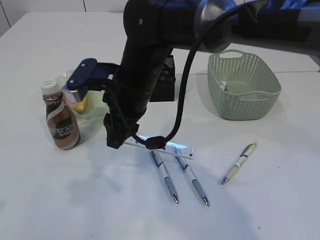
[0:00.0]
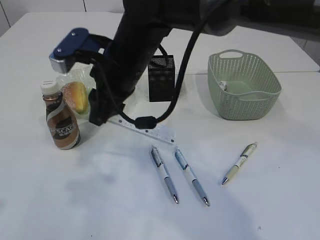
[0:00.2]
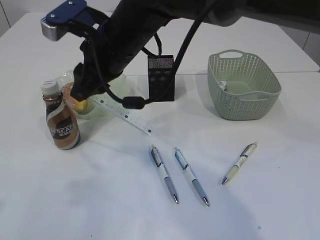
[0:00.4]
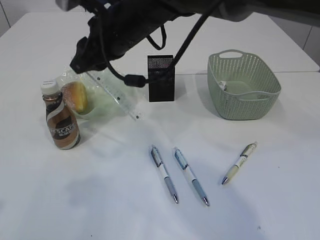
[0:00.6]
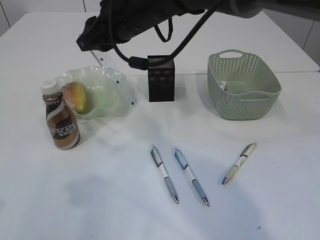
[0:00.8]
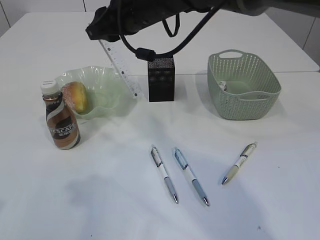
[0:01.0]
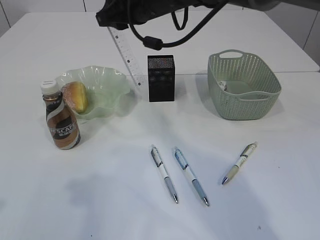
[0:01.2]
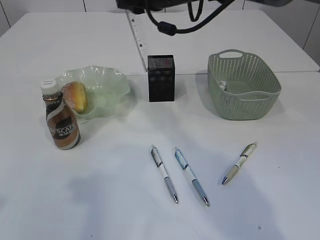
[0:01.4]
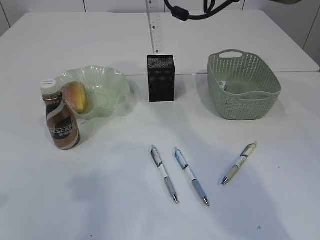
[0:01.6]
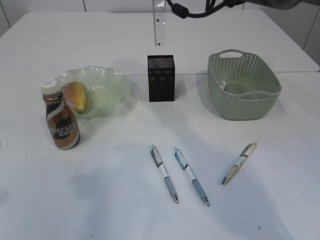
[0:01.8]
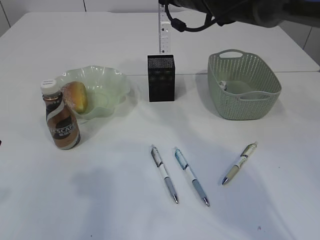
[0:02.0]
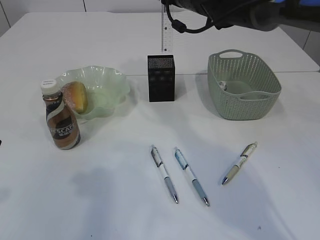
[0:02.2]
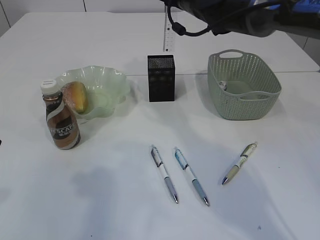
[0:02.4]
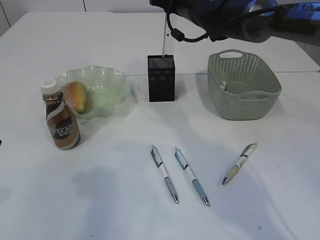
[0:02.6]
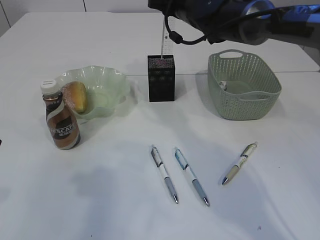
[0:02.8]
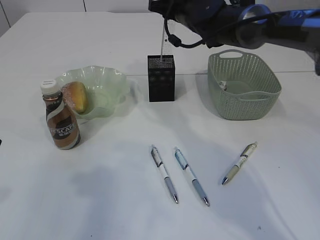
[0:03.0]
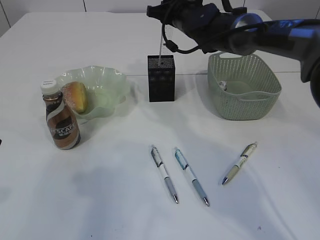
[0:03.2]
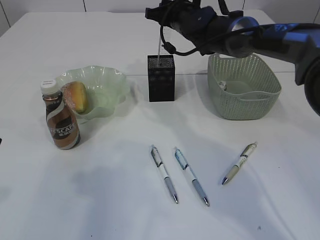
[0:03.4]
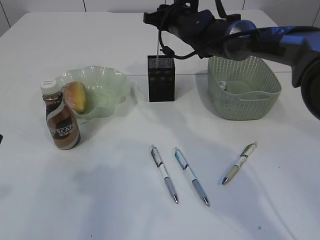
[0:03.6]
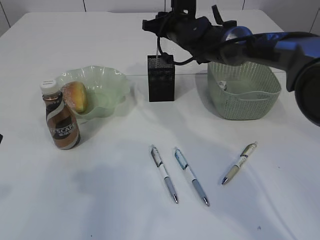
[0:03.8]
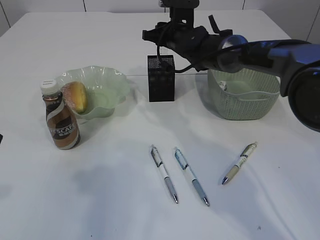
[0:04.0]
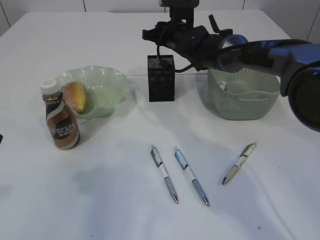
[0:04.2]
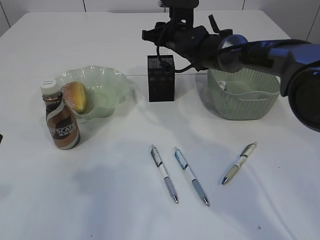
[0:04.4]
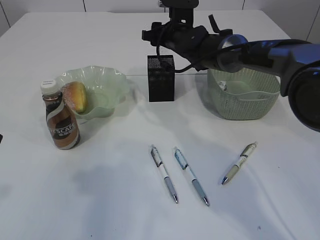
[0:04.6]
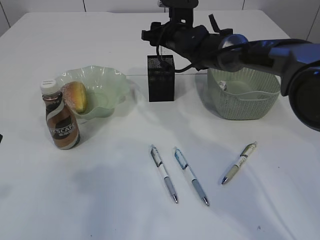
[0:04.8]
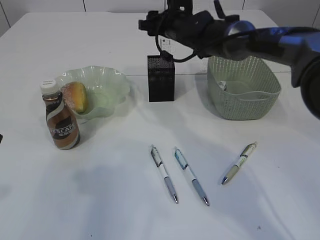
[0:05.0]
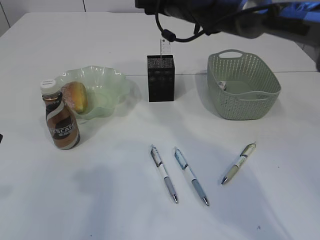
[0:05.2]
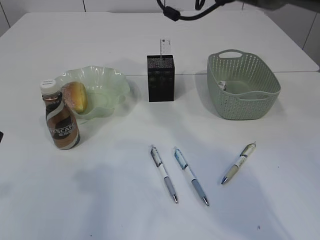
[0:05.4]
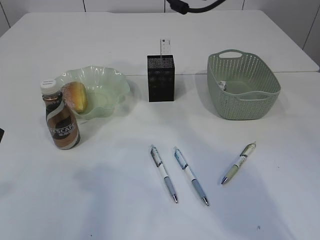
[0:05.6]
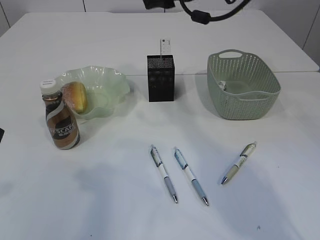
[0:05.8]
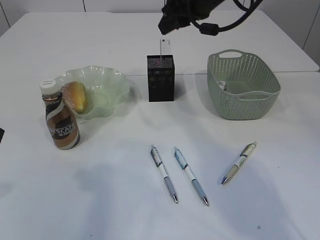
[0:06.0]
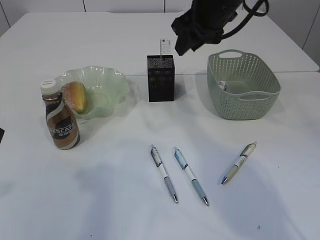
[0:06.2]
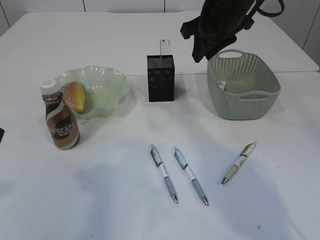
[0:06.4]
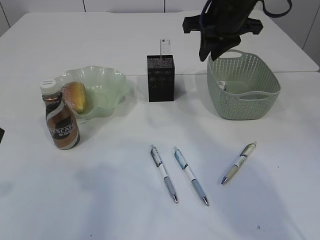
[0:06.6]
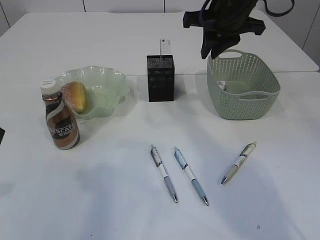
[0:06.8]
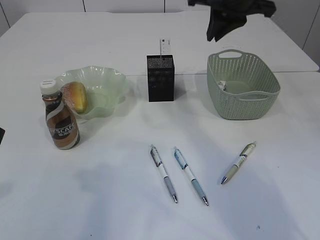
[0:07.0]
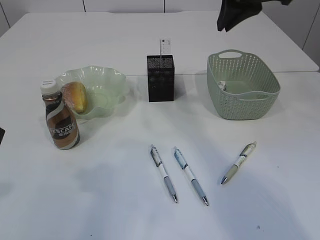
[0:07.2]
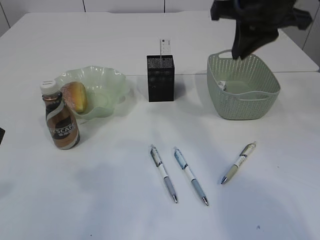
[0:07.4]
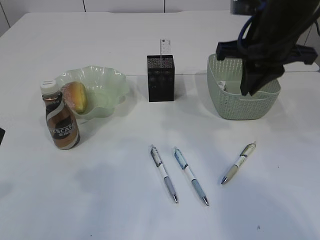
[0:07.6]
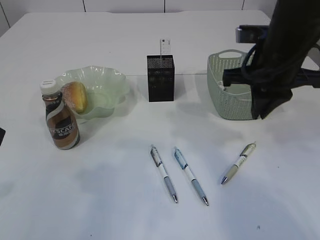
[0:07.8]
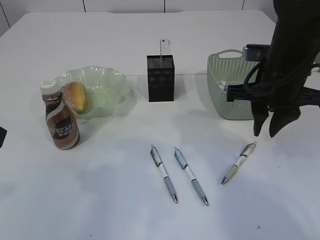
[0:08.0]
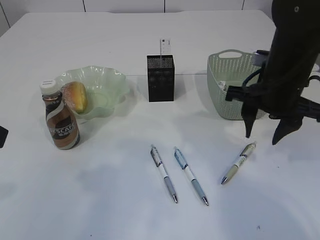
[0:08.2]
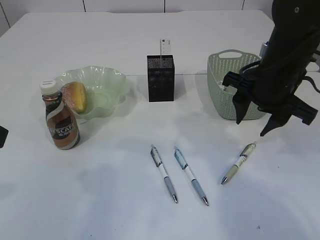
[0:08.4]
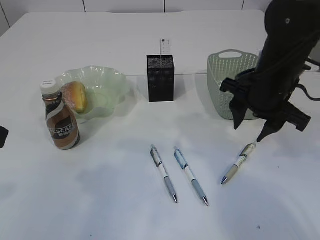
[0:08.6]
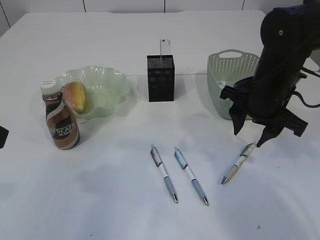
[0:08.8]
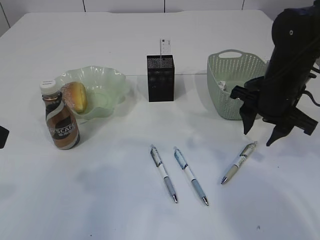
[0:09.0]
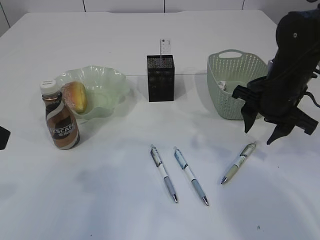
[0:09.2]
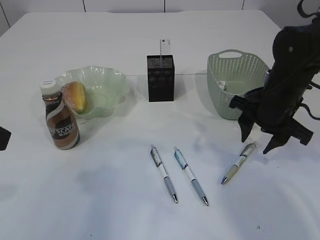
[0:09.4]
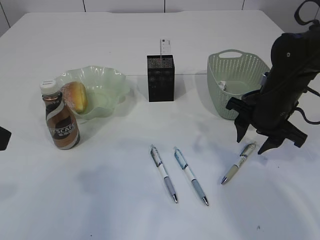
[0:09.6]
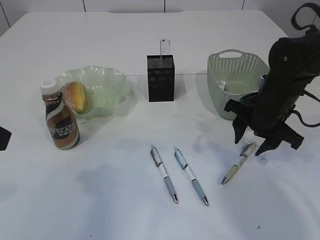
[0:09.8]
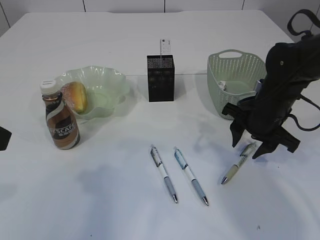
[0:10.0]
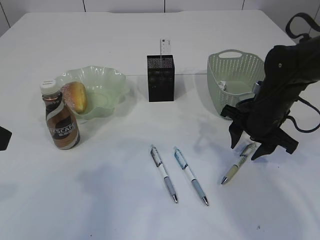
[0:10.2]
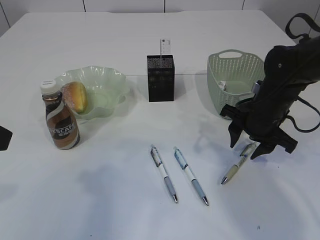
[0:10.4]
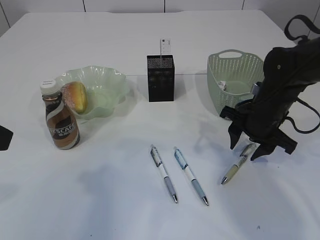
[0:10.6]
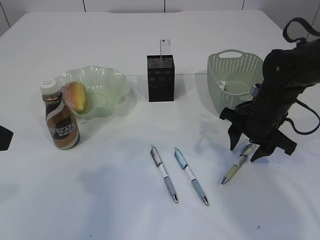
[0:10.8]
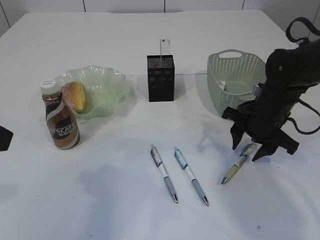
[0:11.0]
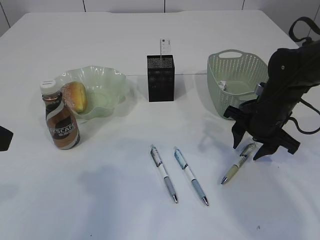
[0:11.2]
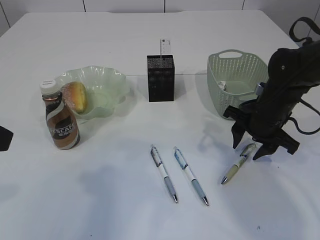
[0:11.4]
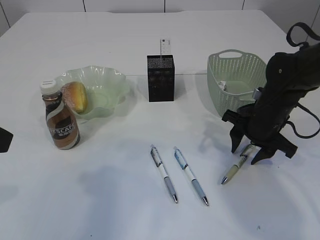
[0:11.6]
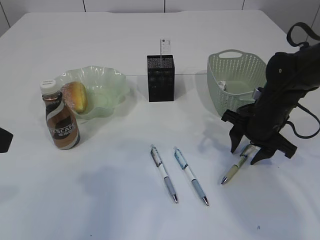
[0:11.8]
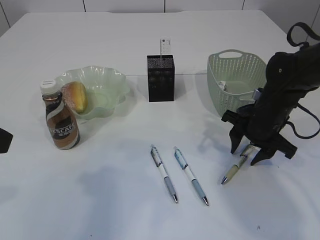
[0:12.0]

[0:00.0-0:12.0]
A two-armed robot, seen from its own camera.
Step, 0:00.2 to 0:06.0: Place the ruler into the pen holder.
0:00.0 to 0:01.6: The right gripper heads forward, upward and to the right, covering about 20 cm.
0:01.6 to 0:03.0: The right gripper goes about 5 cm downward.
0:03.0 to 0:04.4: The right gripper heads downward, covering roughly 5 cm.
0:04.4 to 0:06.0: The right gripper heads upward and backward, covering approximately 15 cm.
0:06.0 to 0:07.6: The right gripper moves backward and to the right, some 10 cm, and closes up.
0:07.6 to 0:09.0: The right gripper goes some 10 cm downward, and opens.
0:09.0 to 0:10.4: The right gripper shifts about 5 cm downward.
0:10.4 to 0:12.0: The grippers make only small movements.

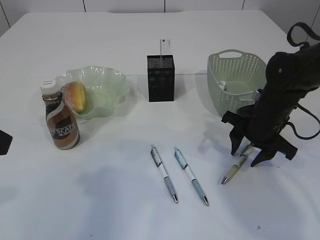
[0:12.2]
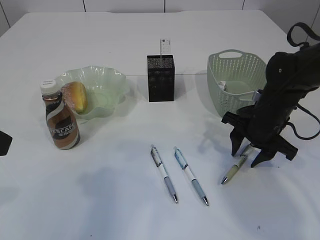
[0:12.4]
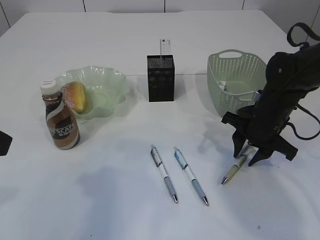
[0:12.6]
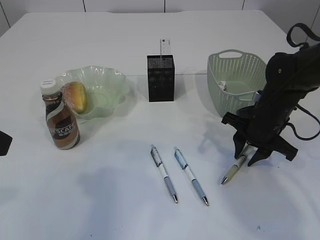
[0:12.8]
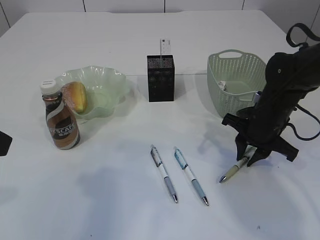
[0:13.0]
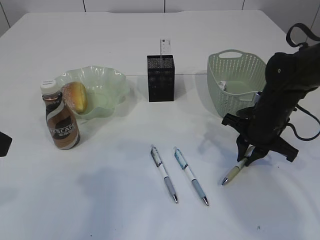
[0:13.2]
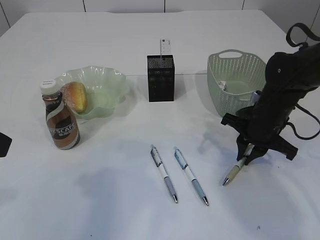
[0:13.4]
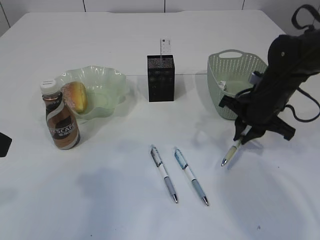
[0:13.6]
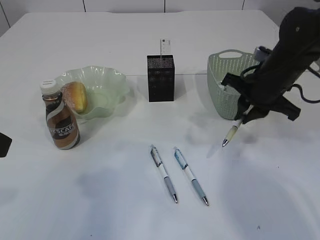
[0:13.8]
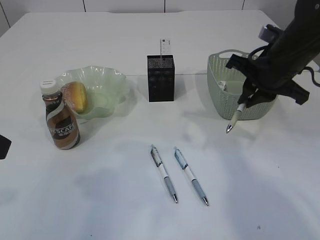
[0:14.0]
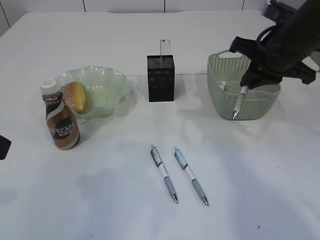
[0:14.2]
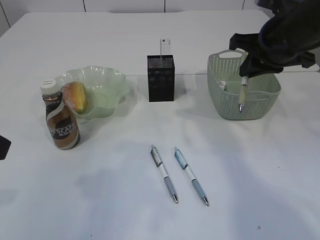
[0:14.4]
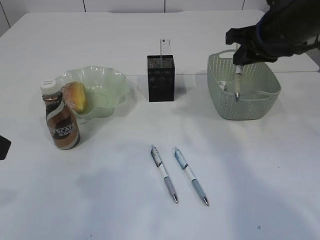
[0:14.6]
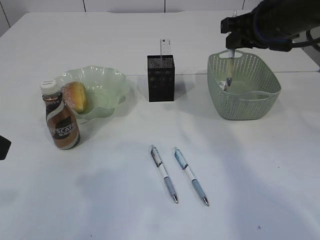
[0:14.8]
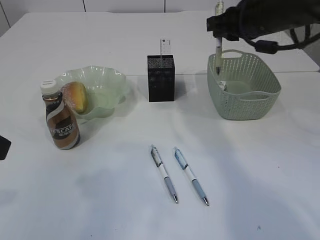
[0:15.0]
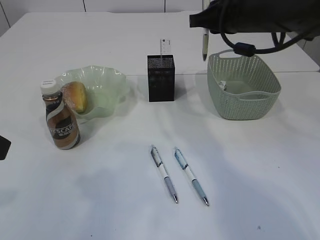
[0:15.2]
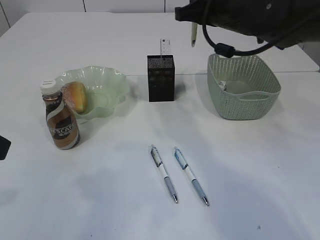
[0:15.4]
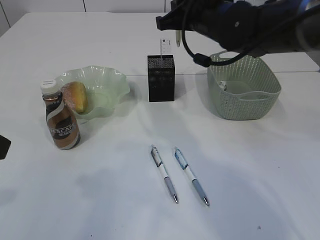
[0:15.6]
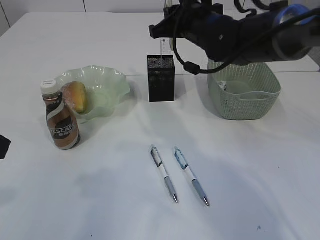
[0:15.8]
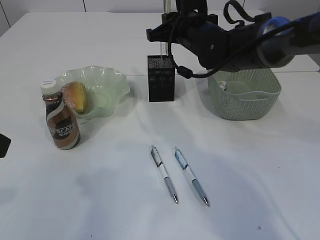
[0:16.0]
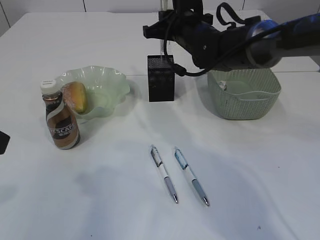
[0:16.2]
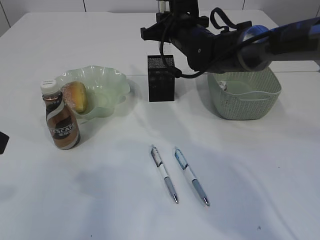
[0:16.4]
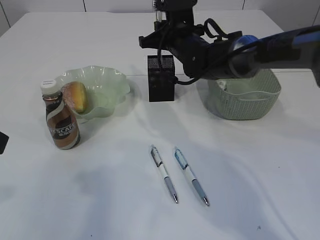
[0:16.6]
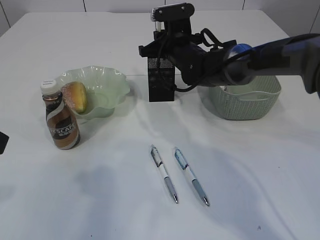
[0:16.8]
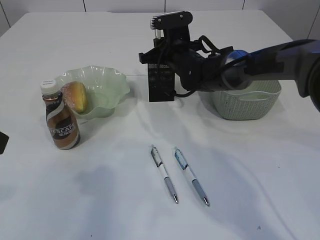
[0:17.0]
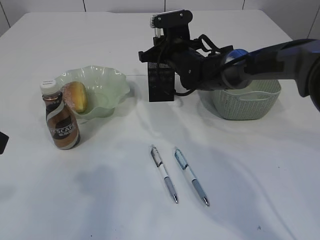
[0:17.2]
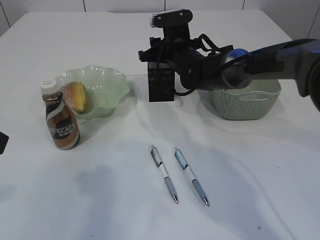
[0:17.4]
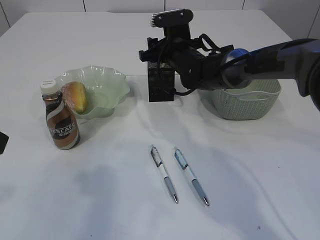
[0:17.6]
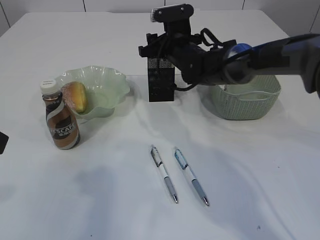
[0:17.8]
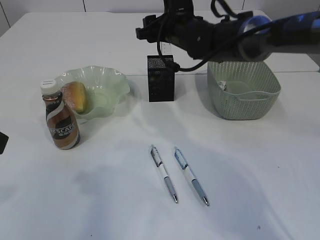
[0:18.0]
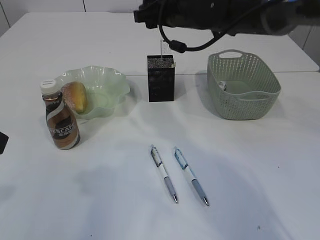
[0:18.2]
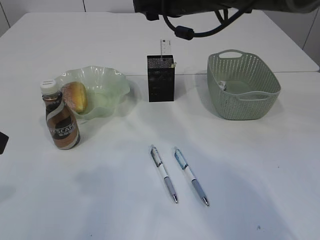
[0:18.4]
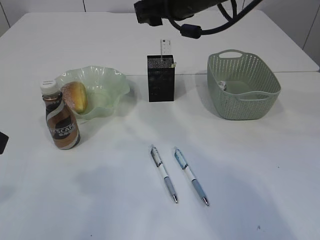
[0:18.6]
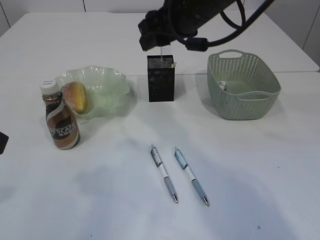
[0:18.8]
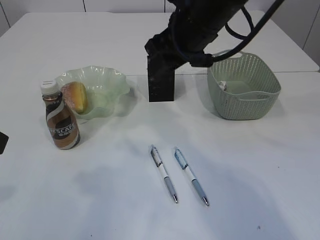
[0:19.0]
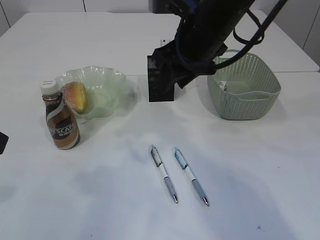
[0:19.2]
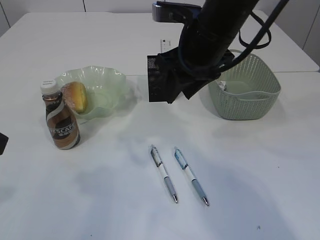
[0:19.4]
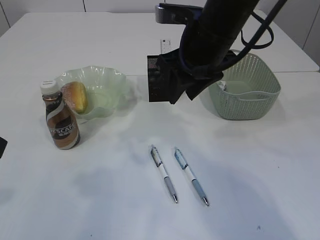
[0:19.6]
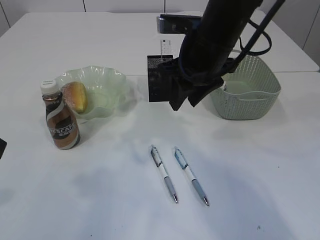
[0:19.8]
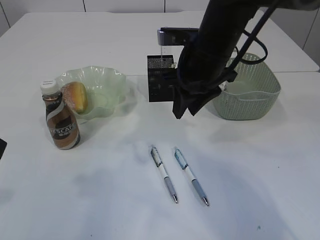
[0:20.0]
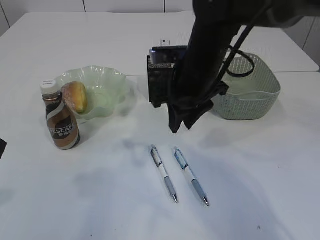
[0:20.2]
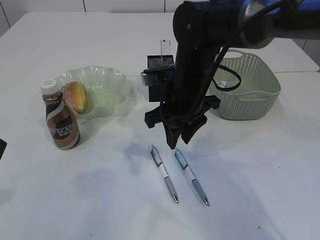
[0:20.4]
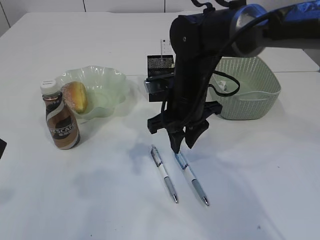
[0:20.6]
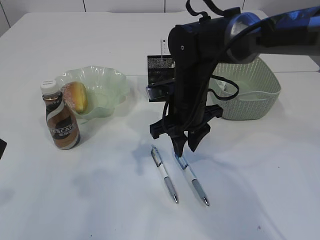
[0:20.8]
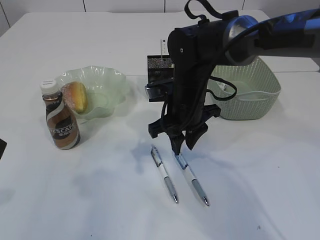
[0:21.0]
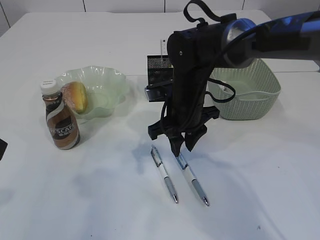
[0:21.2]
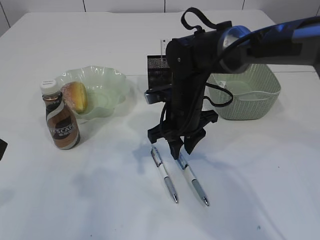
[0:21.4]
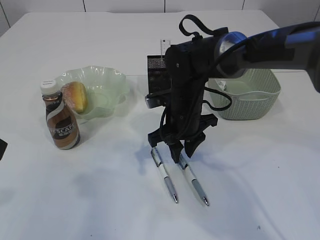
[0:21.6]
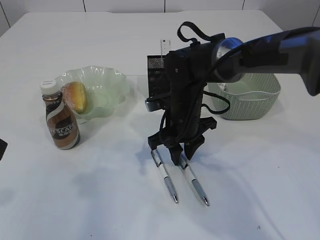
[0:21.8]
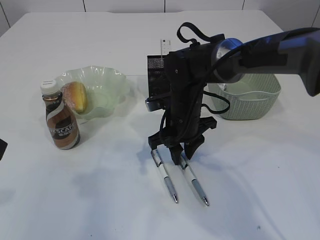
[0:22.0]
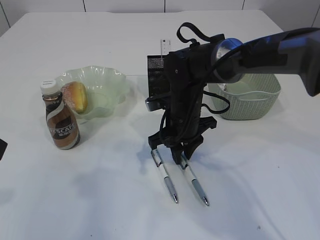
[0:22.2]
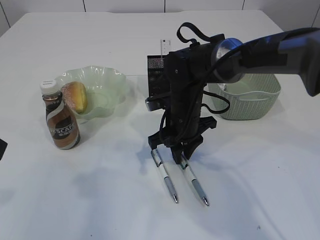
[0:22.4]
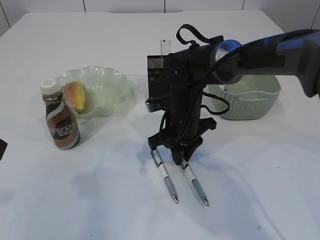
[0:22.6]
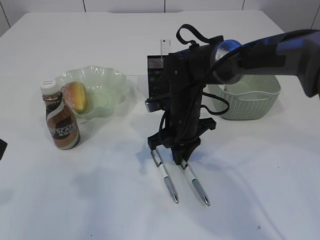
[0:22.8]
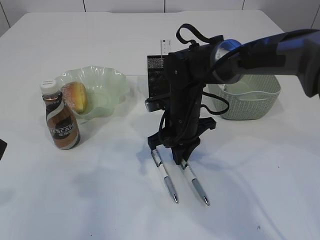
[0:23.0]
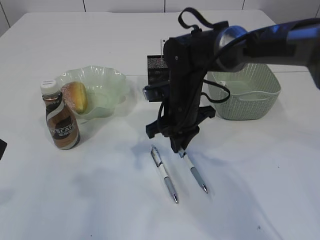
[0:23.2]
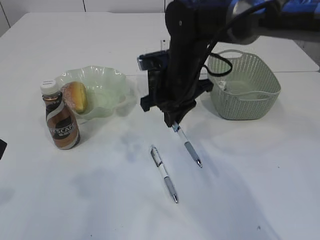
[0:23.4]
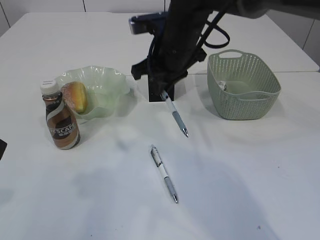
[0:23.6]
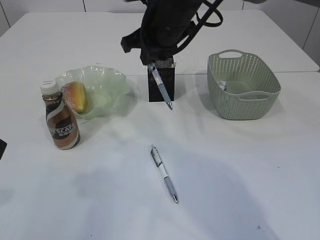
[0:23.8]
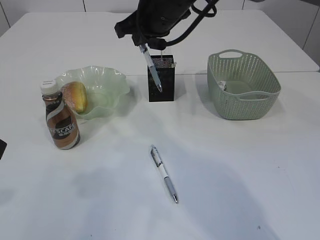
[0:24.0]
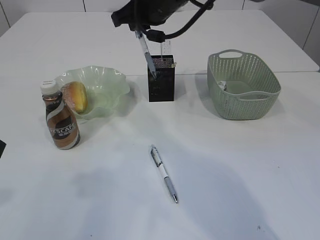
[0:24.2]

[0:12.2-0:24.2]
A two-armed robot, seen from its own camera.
Step, 0:13.8 to 0:18.0: Place the pen into the pen holder.
Step, 0:18.2 to 0:23.4: Pick up the pen with right arm.
0:12.2 to 0:13.8: The right gripper goes about 5 cm upward, and closes.
0:13.8 to 0:15.2: The right gripper travels upward and to the left by approximately 10 cm.
0:15.2 to 0:16.6: The right gripper is displaced forward, downward and to the left by some 15 cm.
0:16.6 to 0:18.2: The right gripper moves upward, about 5 cm, and opens.
0:18.2 to 0:19.8: The right gripper shifts about 10 cm backward.
0:19.8 to 0:21.2: The right gripper heads downward, covering about 10 cm.
0:21.2 to 0:22.6: There are only small adjustments of the grippers.
0:22.6 to 0:24.2: The right gripper shifts some 20 cm upward.
